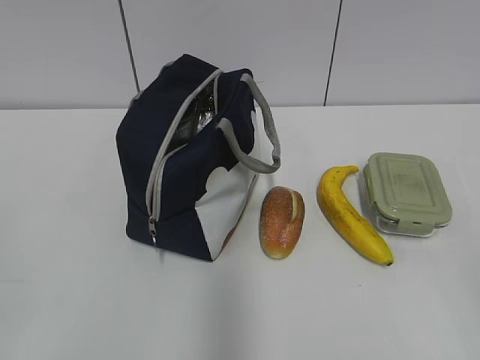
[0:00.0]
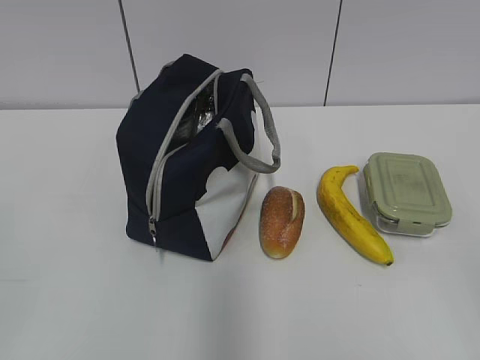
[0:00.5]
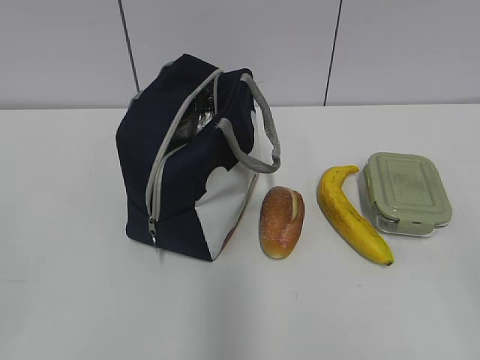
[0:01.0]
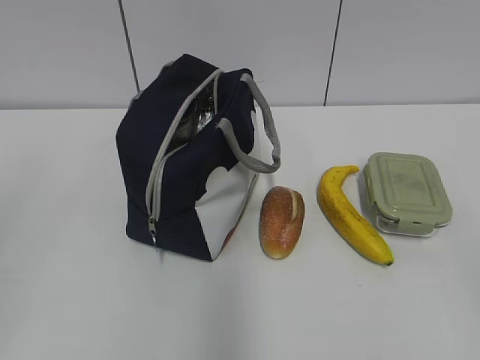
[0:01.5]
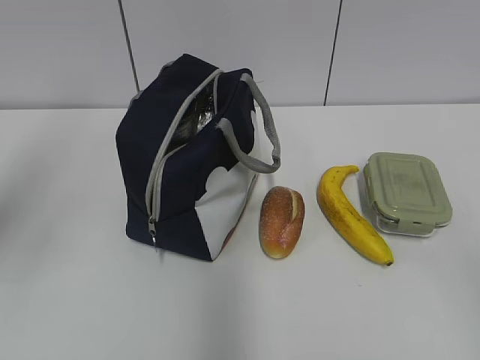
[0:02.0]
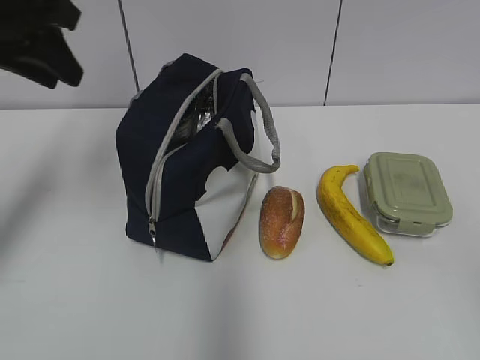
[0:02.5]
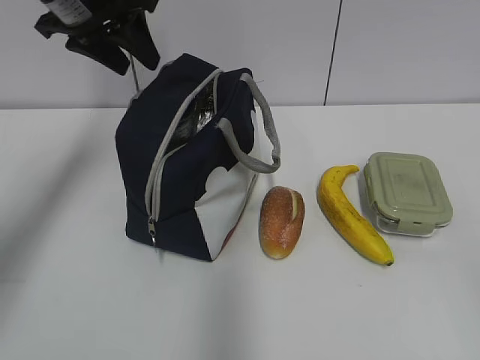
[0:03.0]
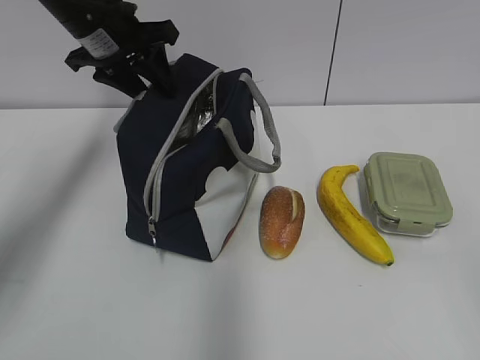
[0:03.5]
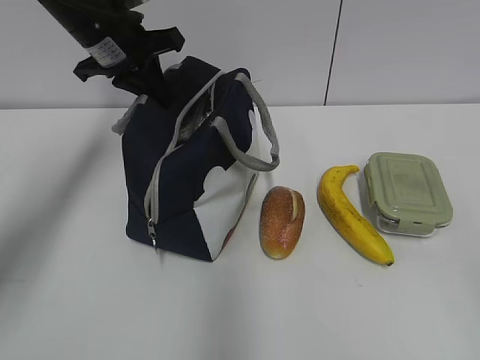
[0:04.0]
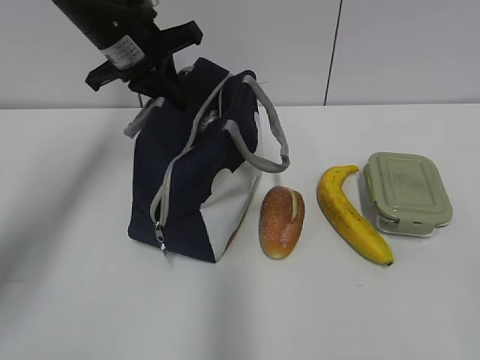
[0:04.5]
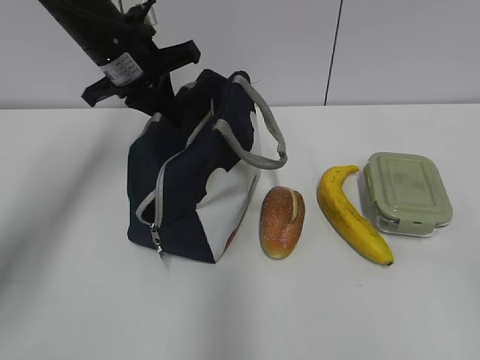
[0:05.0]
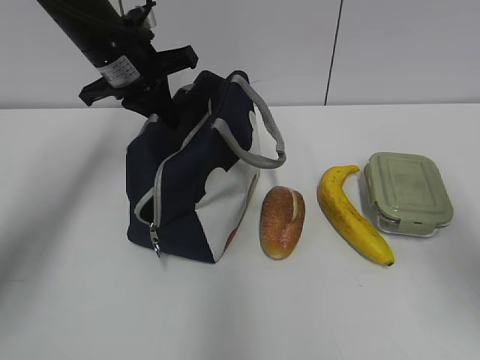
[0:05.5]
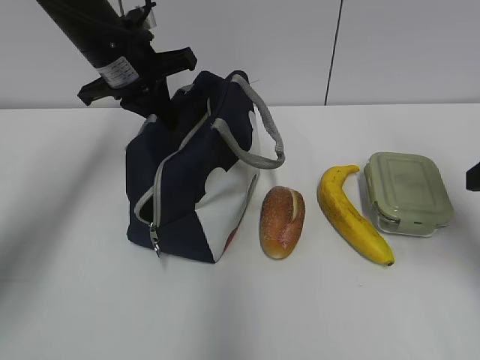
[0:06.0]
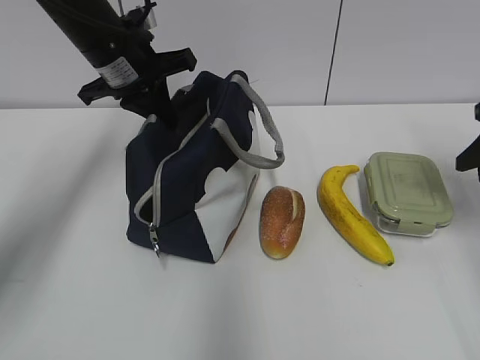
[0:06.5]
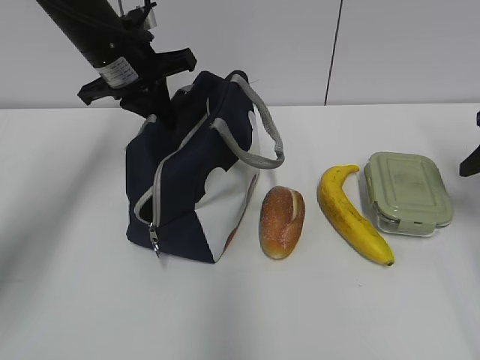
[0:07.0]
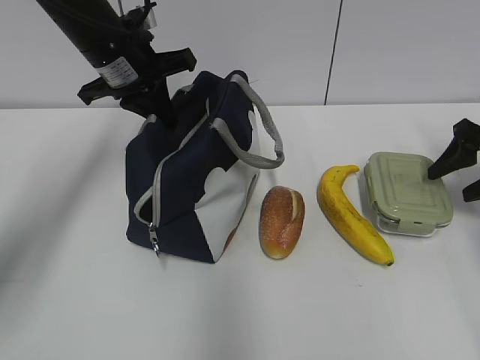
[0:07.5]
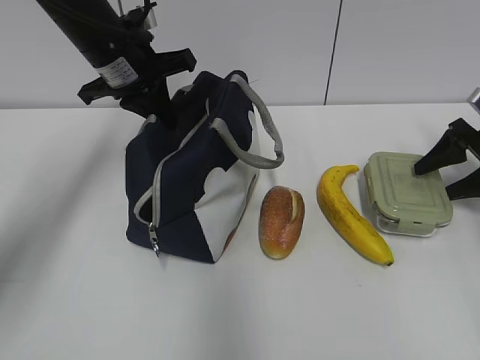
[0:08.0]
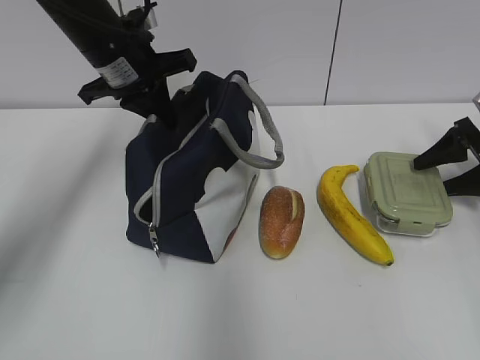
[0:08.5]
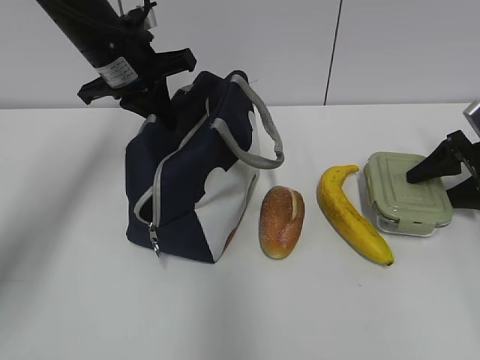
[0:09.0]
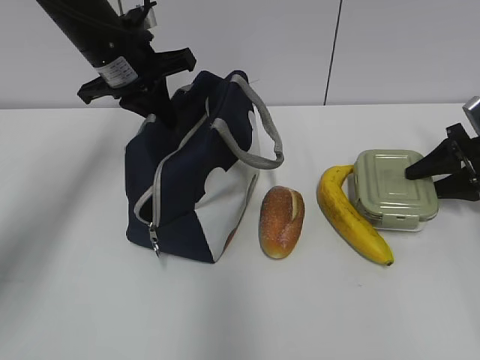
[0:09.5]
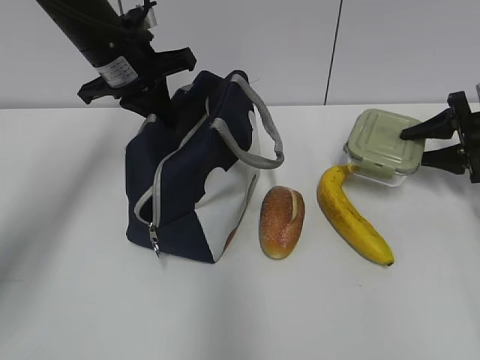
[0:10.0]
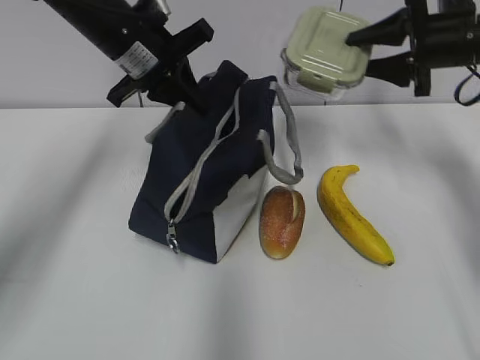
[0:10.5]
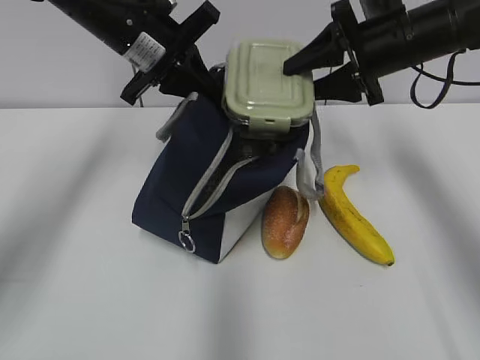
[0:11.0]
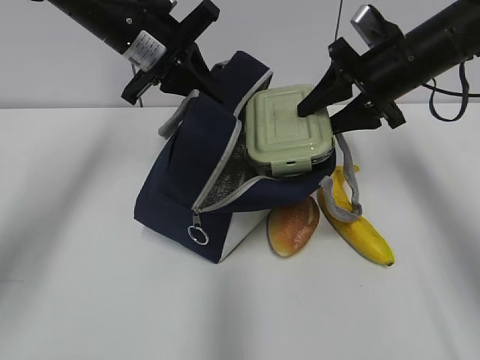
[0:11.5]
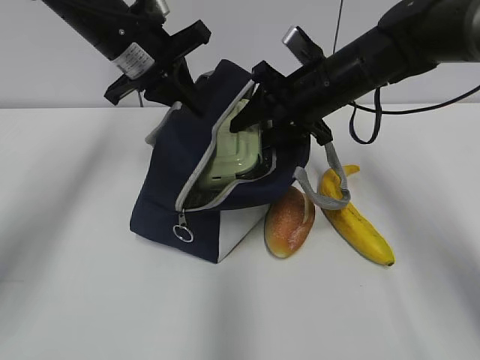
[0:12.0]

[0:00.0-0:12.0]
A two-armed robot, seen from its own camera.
0:02.0 to 0:04.0: The left gripper shifts some 30 cm forward and to the right, and closes its fingers.
0:04.0 to 0:06.0: The right gripper shifts about 25 cm forward.
0:06.0 to 0:08.0: The right gripper shifts about 25 cm forward, downward and to the right, and opens.
0:10.0 to 0:12.0: The right gripper moves to the left, roughly 25 cm.

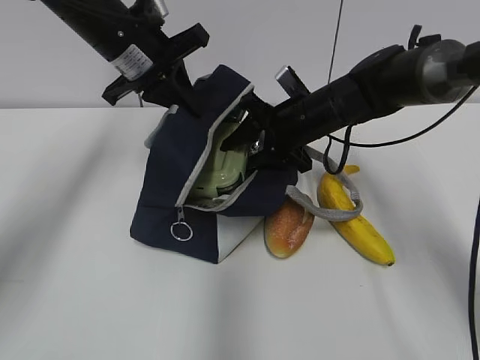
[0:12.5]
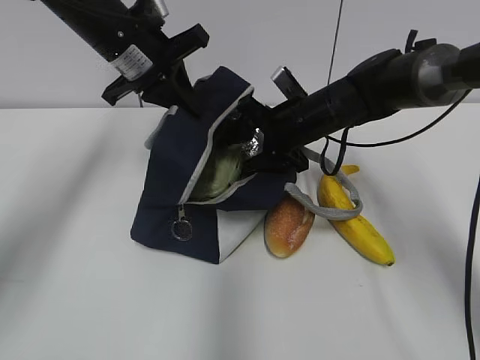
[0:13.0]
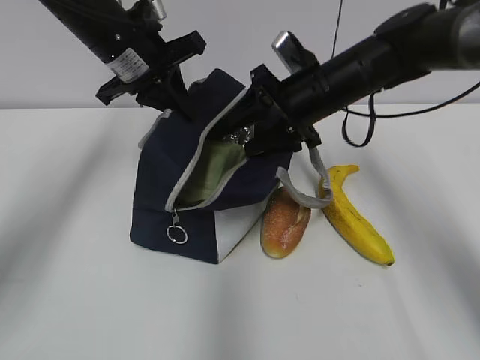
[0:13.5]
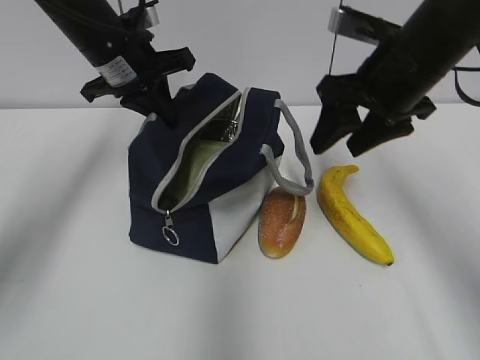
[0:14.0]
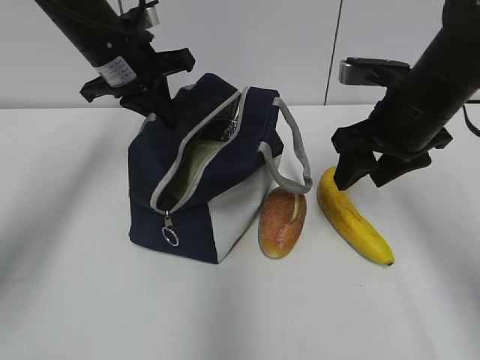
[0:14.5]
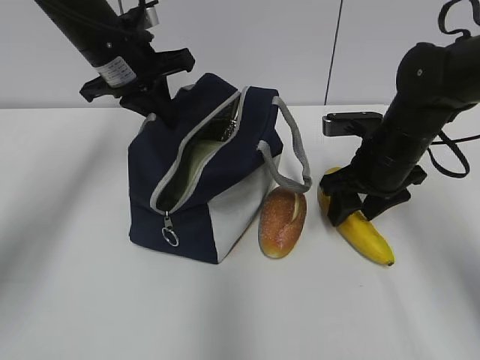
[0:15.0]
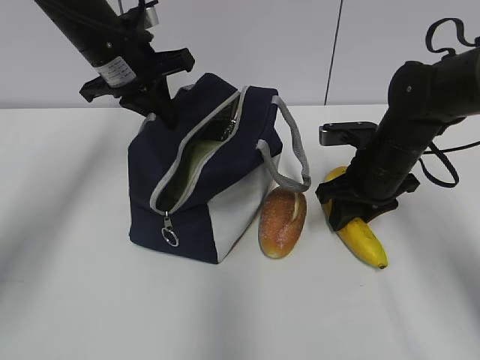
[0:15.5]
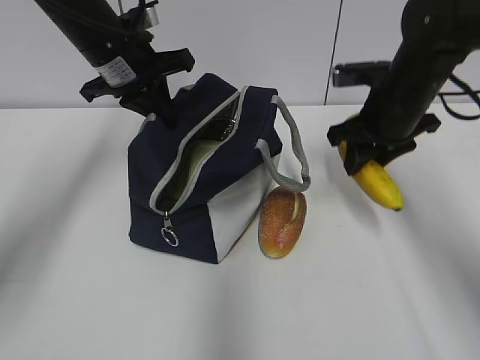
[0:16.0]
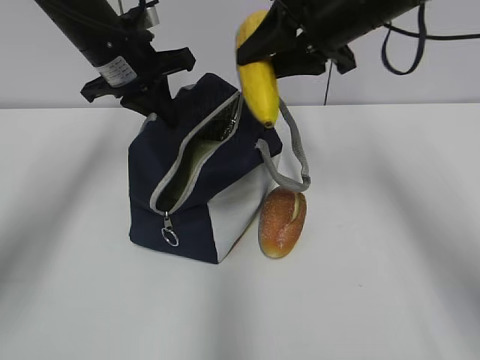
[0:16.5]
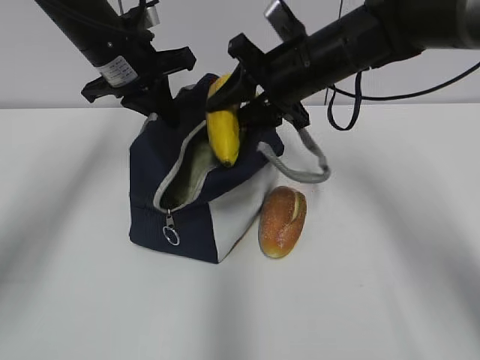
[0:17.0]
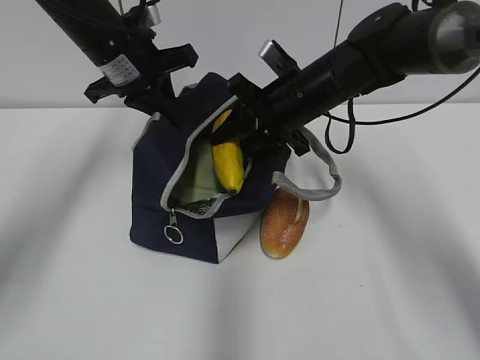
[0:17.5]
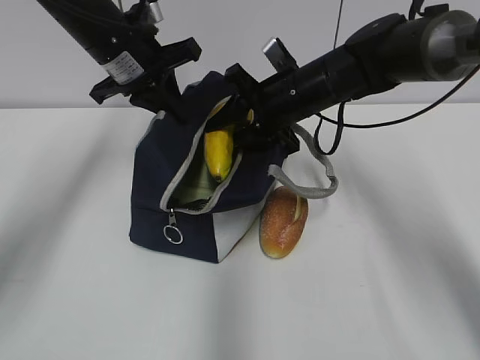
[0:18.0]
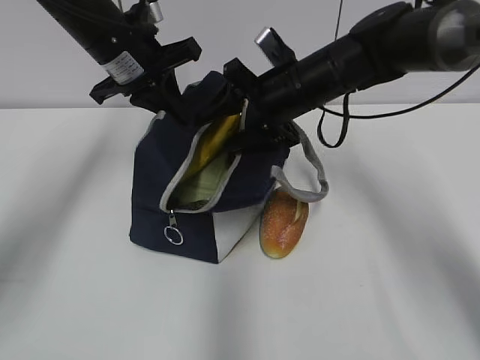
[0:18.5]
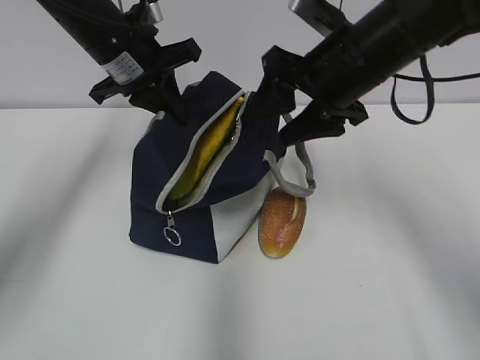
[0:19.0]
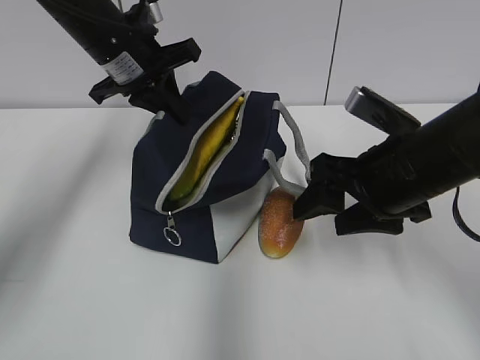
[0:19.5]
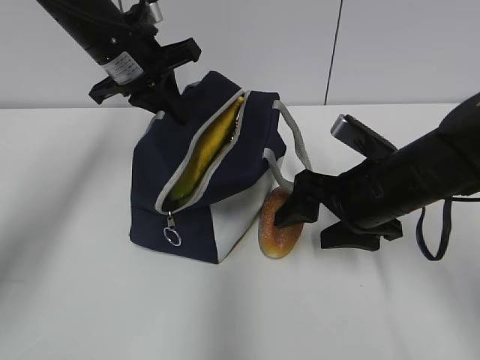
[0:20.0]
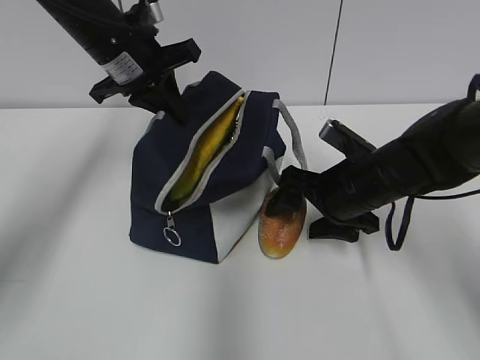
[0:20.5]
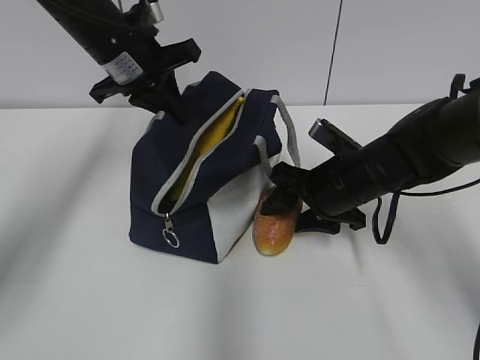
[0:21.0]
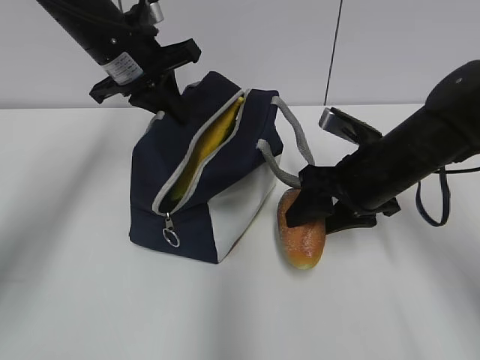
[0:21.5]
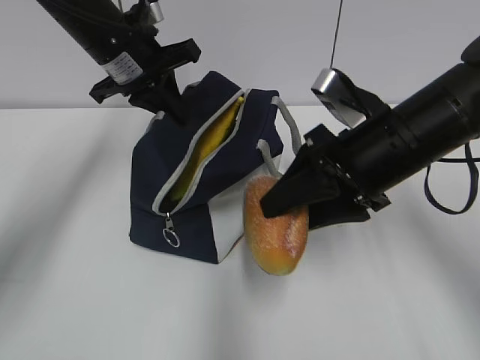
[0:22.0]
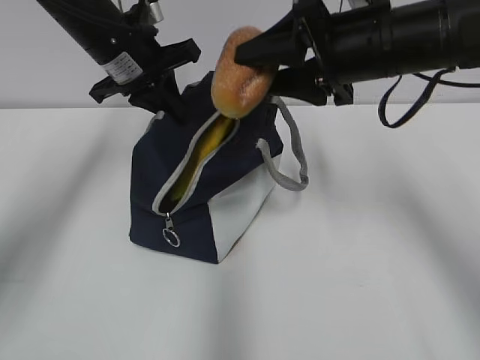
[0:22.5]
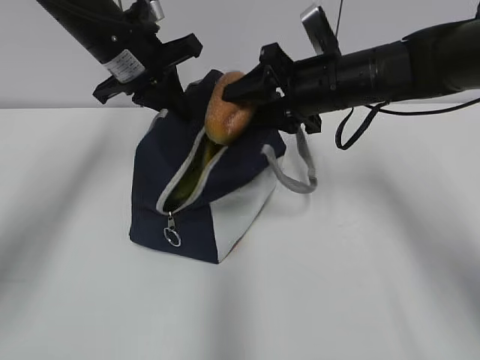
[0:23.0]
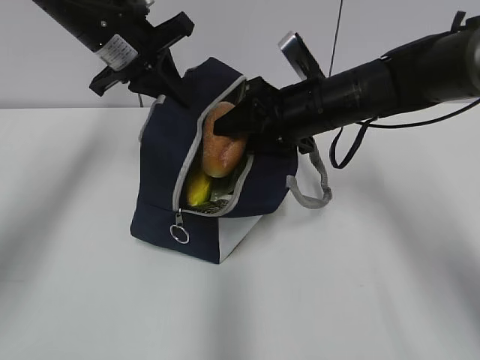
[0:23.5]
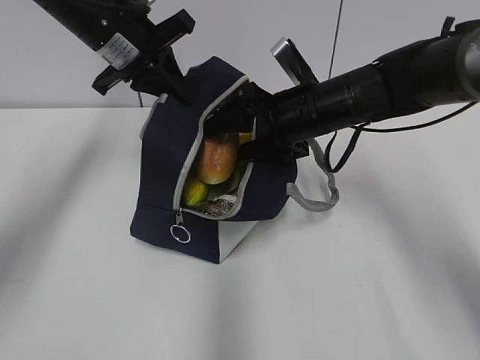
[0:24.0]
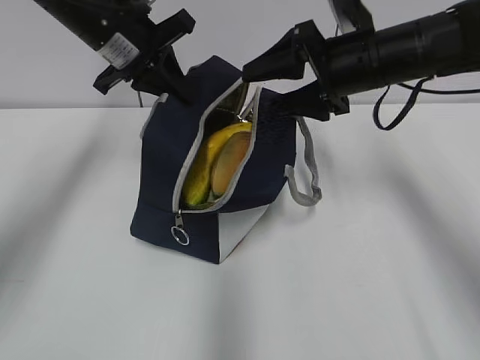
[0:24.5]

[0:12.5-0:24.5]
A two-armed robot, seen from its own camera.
0:12.5 to 0:14.5: The right gripper is displaced backward, to the right and upward by approximately 15 cm.
0:14.5 to 0:16.5: The right gripper is displaced upward and to the left by about 10 cm.
0:16.5 to 0:18.5: The right gripper heads downward, covering some 10 cm, and opens up.
0:18.5 to 0:20.5: The right gripper heads backward, downward and to the right, covering roughly 15 cm.
0:20.5 to 0:22.5: The right gripper goes approximately 15 cm upward.

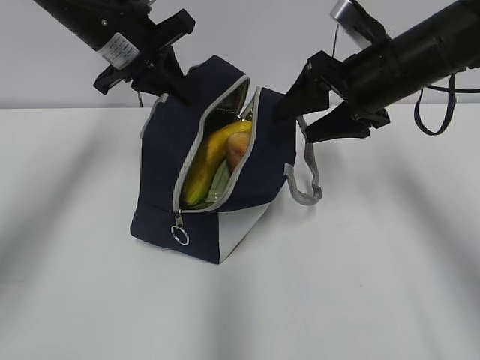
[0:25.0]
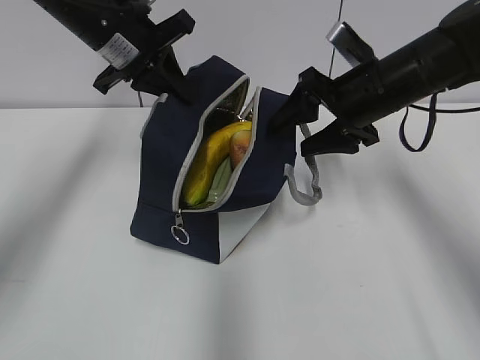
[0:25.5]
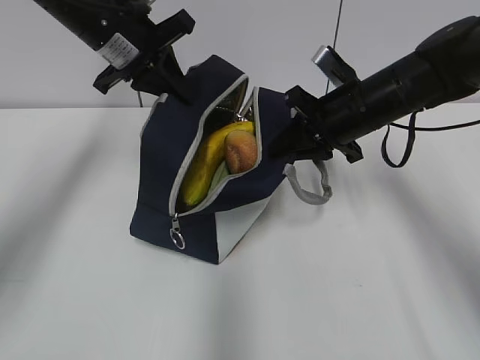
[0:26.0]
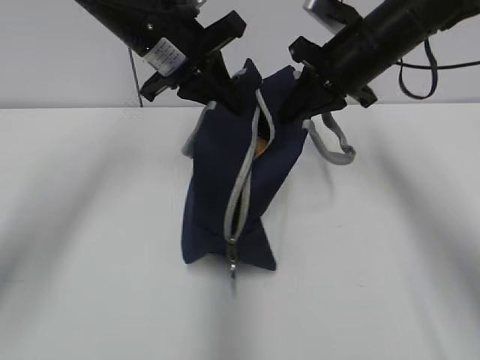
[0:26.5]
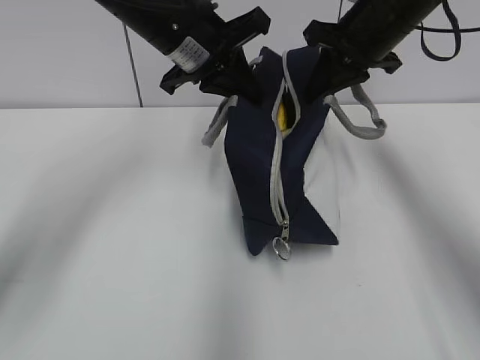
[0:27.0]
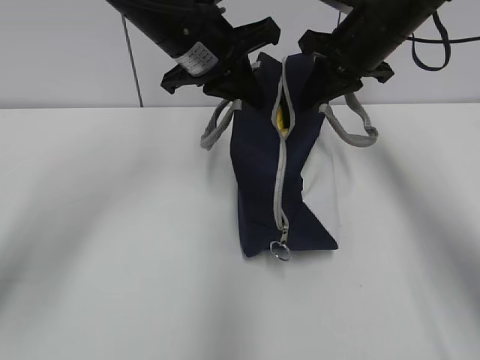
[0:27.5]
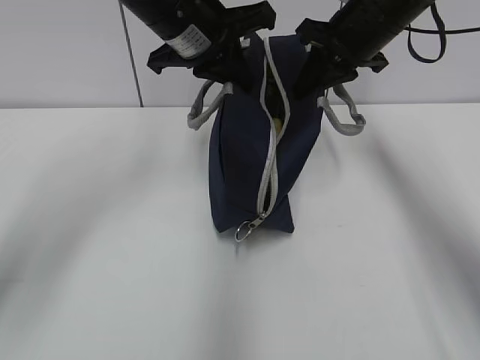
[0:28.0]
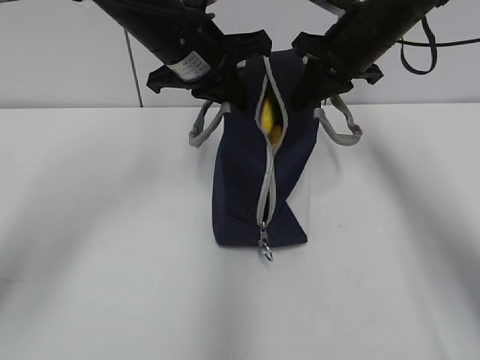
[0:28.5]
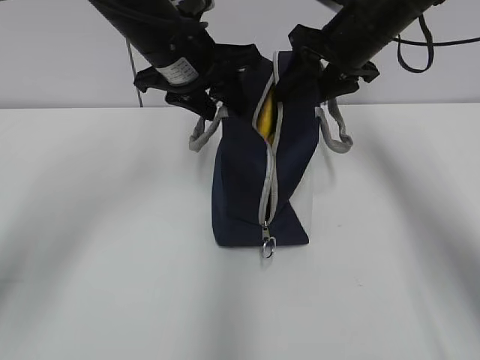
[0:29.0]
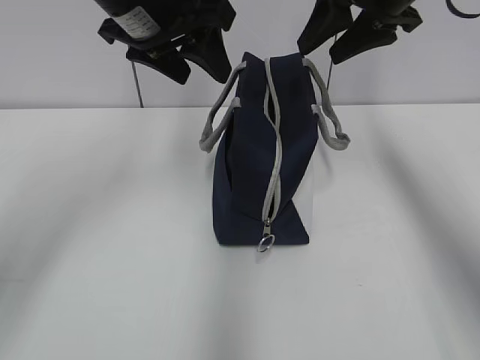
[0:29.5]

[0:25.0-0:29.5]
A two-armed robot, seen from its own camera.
0:25.0 to 0:27.0: The right gripper moves approximately 5 cm, and closes up. The left gripper moves to the right, roughly 10 cm.
0:27.0 to 0:29.5: The right gripper travels upward by approximately 5 cm, and opens its fingers. The left gripper moves some 5 cm, and opens.
